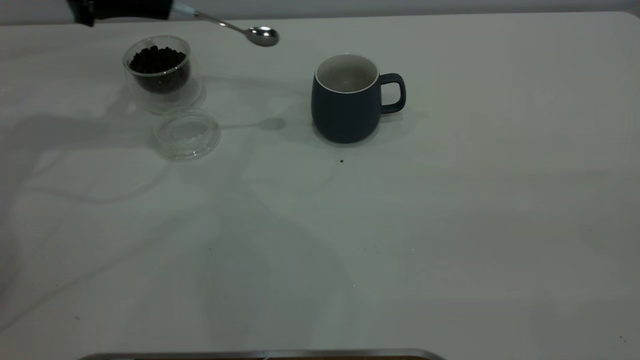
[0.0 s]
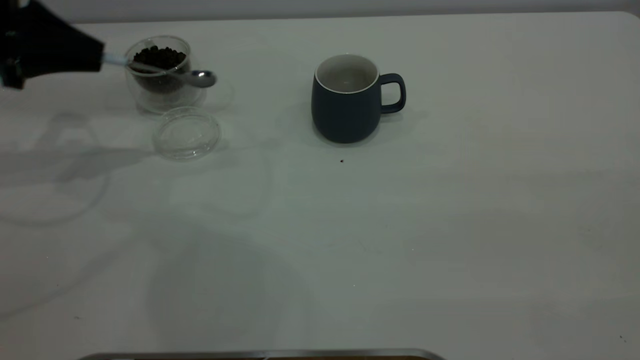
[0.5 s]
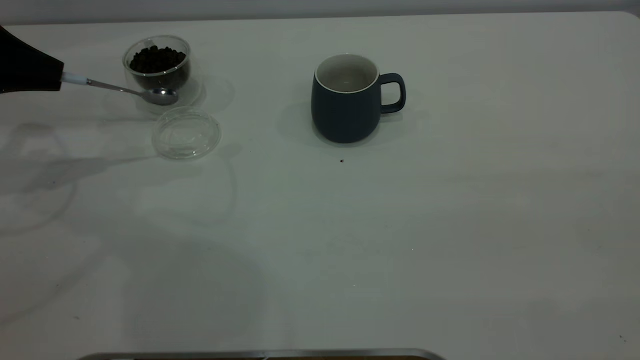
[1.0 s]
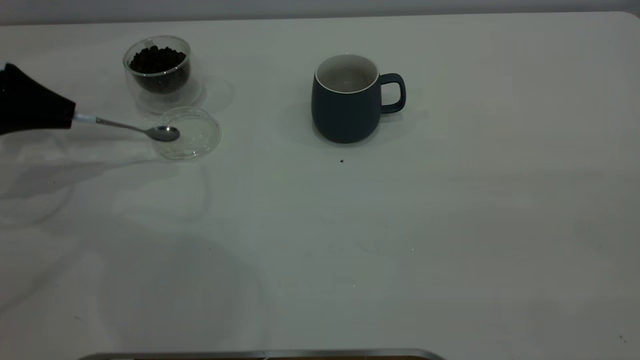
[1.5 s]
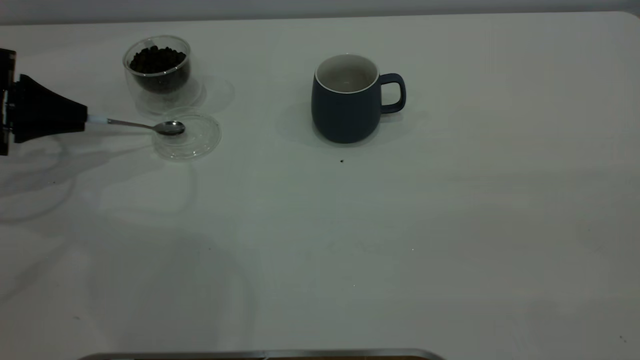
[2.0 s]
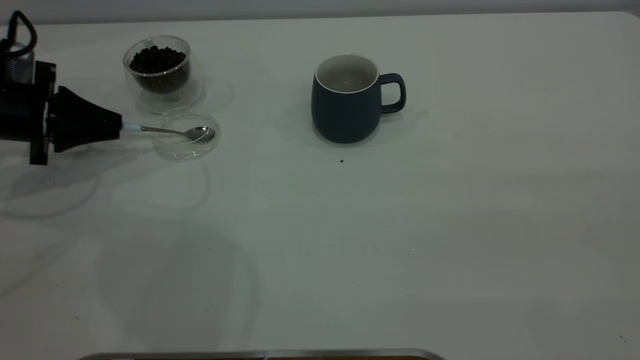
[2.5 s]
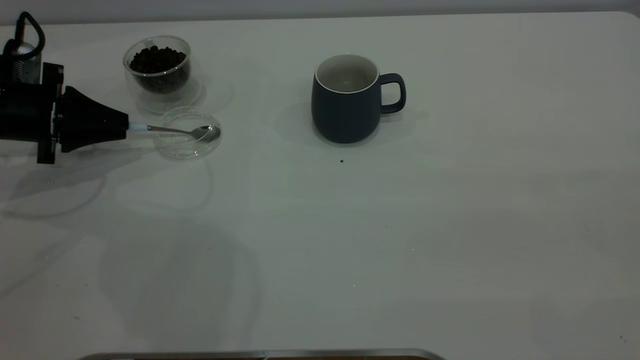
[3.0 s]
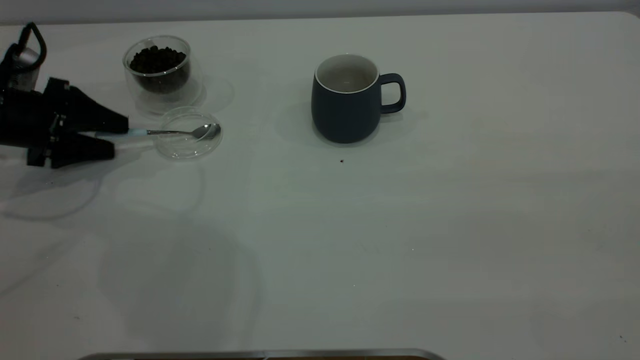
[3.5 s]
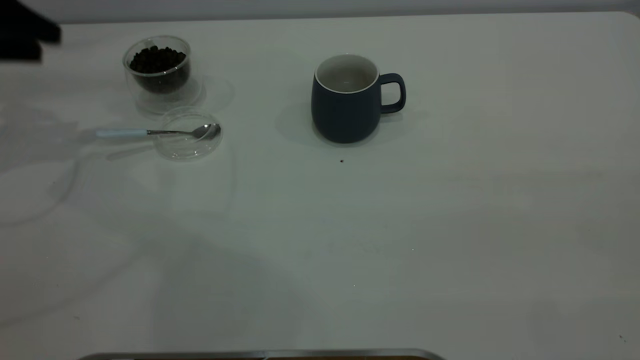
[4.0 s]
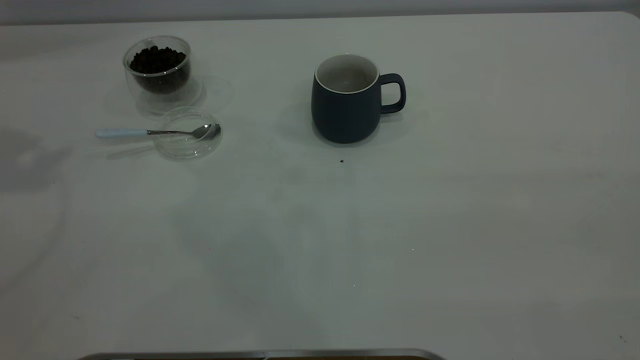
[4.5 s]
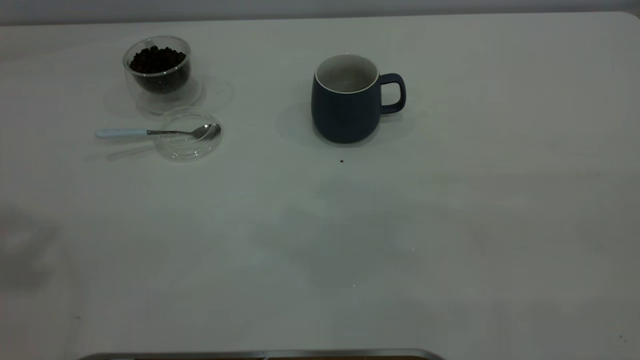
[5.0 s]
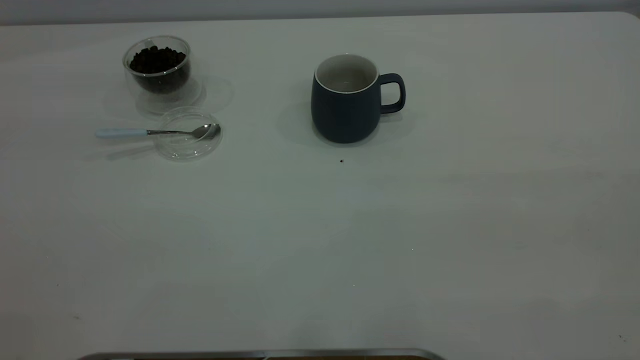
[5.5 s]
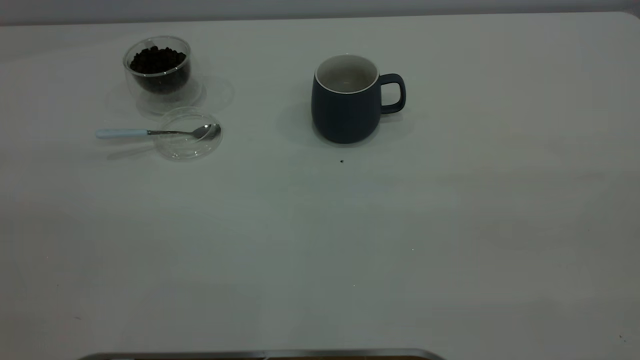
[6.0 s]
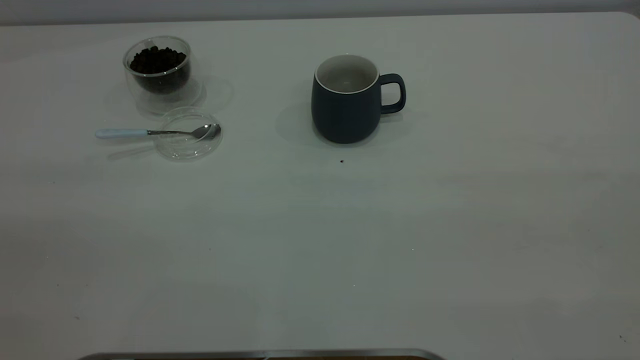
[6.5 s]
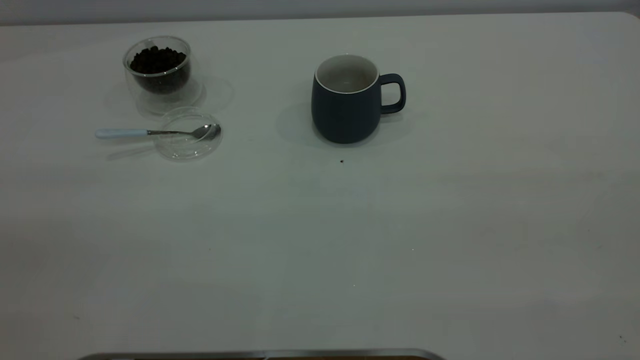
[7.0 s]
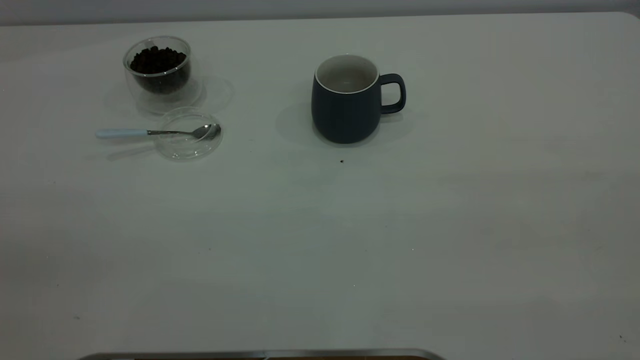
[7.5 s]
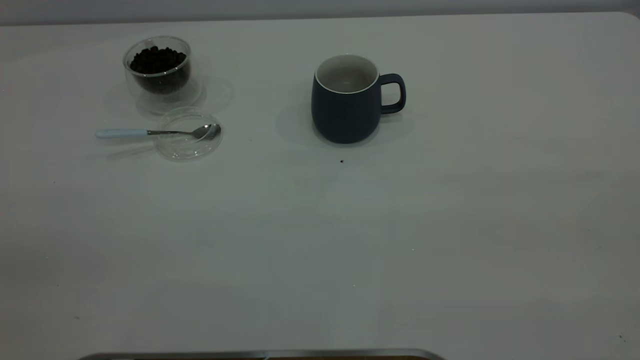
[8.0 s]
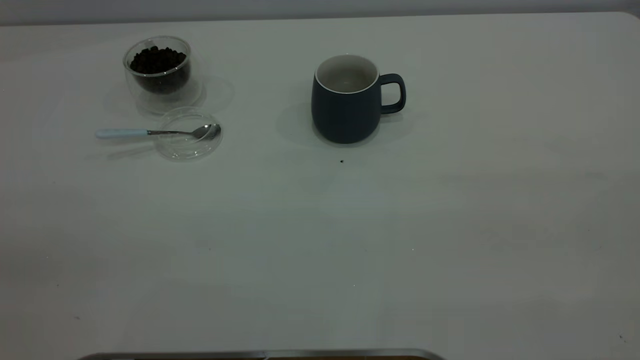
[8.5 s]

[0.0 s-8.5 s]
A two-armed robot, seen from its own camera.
Task of the whole recording: the right gripper place the grey cup in the center of the table, the left gripper take the blue spoon from the cup lid and scoop out the coffee beans from the coffee cup and put them into the grey cup, the left gripper put the spoon back into the cup lid.
Step, 0.0 to 3.5 s: Place the spoon back in its original place.
0.0 to 2.0 s: The left gripper heads downward, to the left and backward, covering some 15 cm.
2.0 to 4.0 s: The left gripper travels upward by some 10 cm, and opens its fingers.
4.0 to 6.5 s: The left gripper heads backward and upward, covering some 40 cm.
